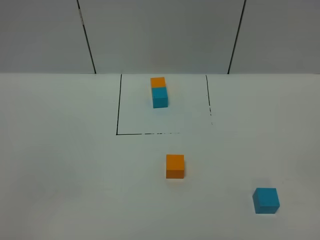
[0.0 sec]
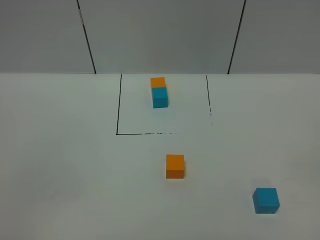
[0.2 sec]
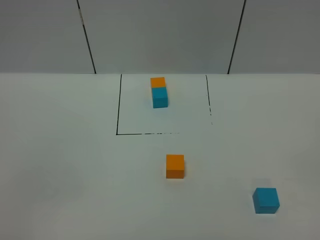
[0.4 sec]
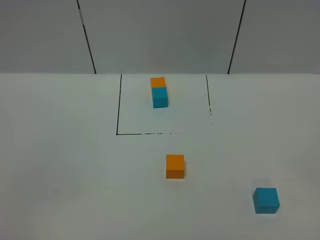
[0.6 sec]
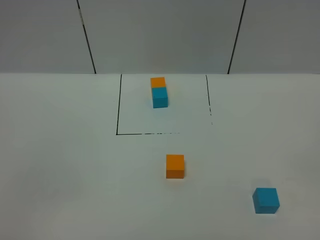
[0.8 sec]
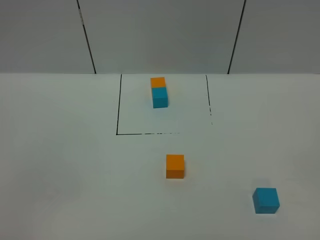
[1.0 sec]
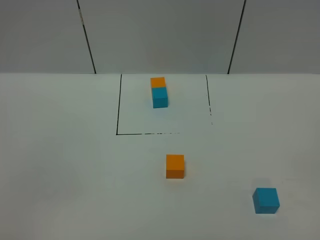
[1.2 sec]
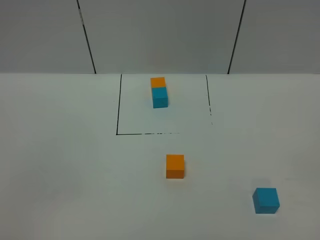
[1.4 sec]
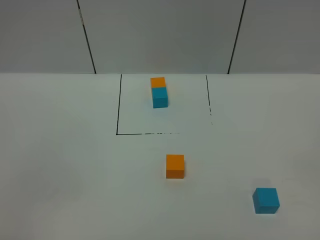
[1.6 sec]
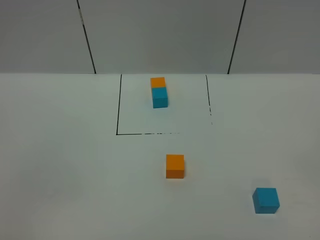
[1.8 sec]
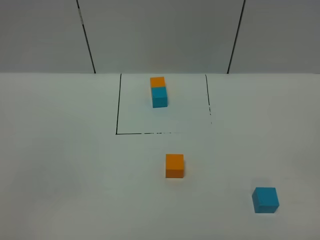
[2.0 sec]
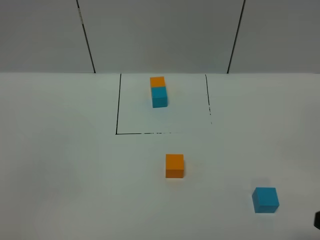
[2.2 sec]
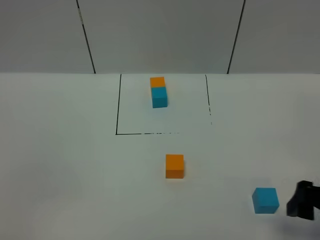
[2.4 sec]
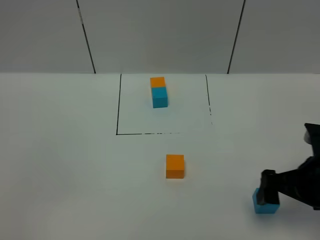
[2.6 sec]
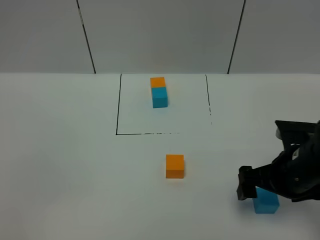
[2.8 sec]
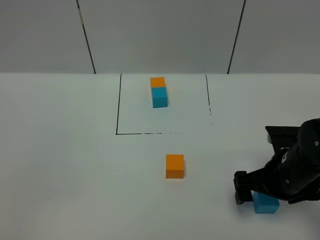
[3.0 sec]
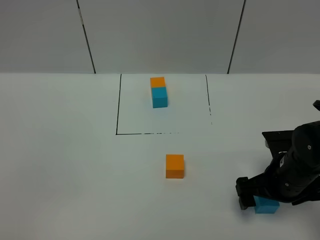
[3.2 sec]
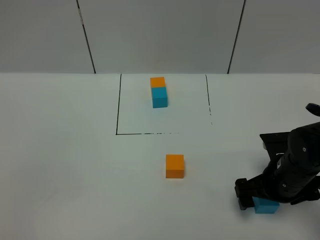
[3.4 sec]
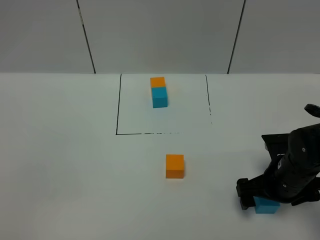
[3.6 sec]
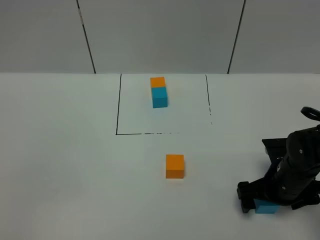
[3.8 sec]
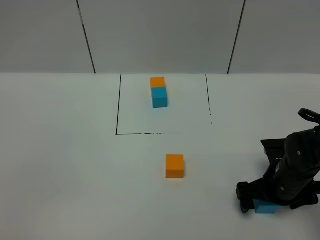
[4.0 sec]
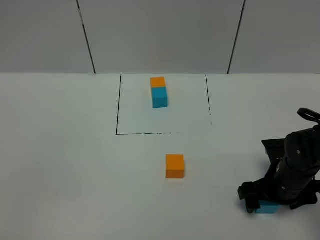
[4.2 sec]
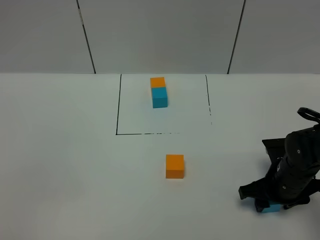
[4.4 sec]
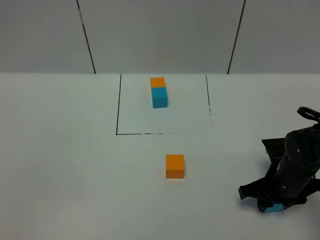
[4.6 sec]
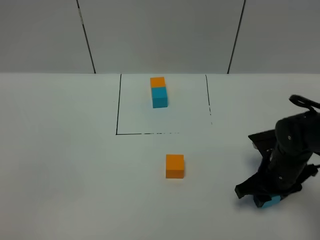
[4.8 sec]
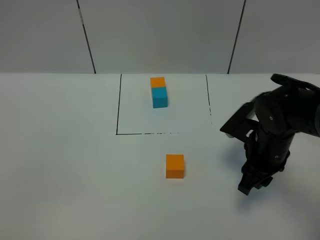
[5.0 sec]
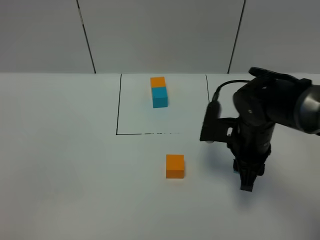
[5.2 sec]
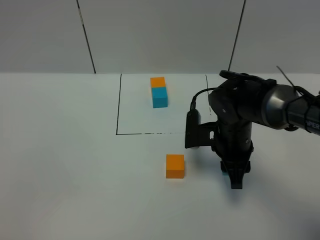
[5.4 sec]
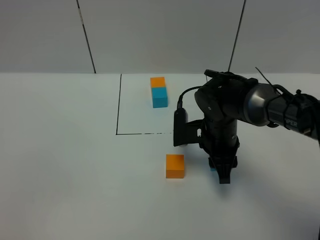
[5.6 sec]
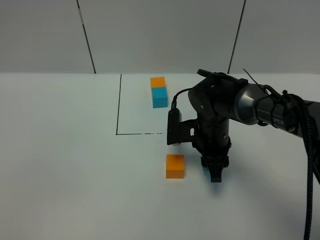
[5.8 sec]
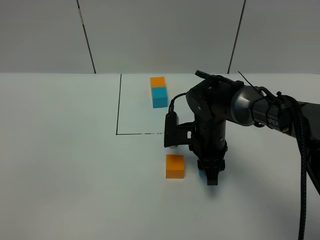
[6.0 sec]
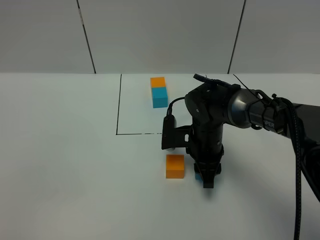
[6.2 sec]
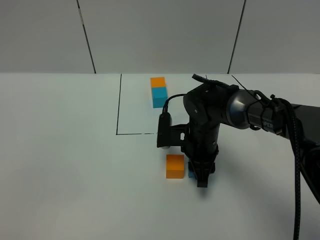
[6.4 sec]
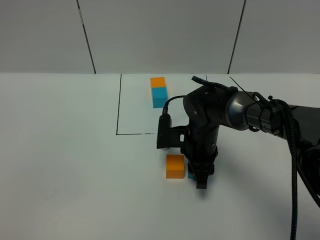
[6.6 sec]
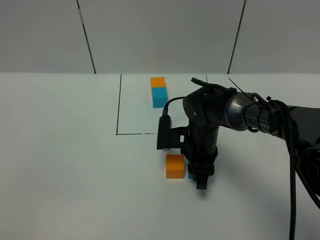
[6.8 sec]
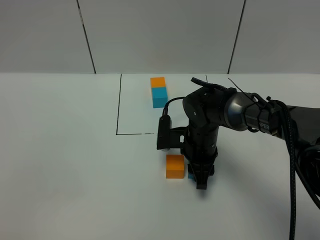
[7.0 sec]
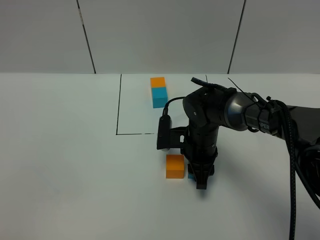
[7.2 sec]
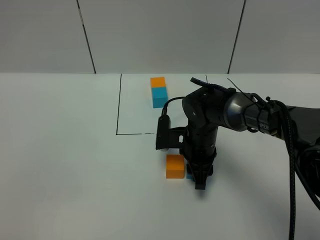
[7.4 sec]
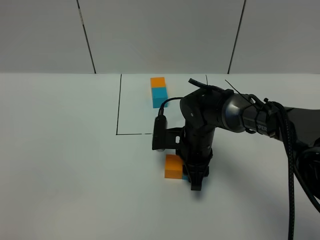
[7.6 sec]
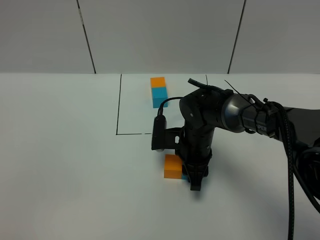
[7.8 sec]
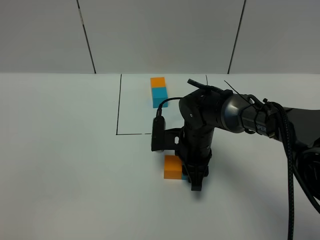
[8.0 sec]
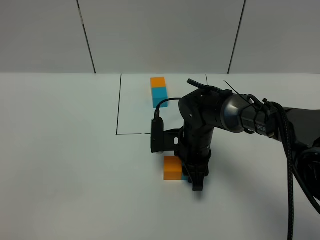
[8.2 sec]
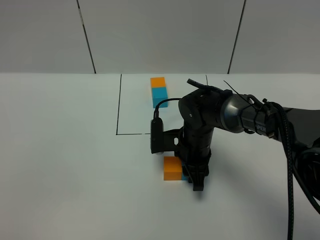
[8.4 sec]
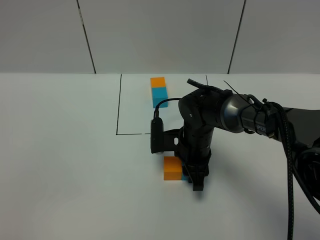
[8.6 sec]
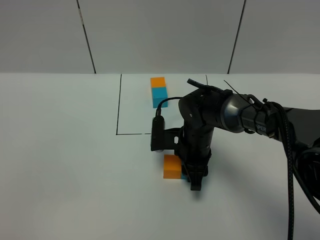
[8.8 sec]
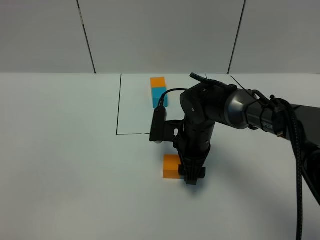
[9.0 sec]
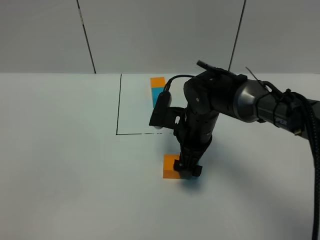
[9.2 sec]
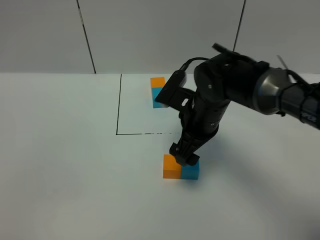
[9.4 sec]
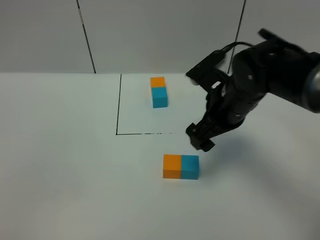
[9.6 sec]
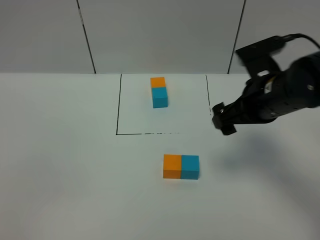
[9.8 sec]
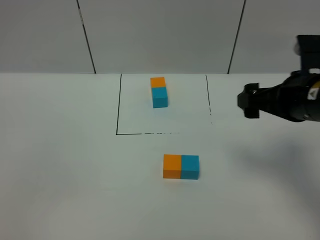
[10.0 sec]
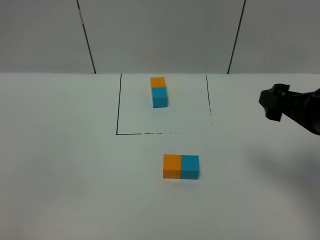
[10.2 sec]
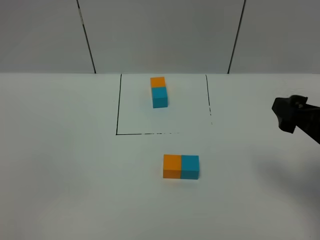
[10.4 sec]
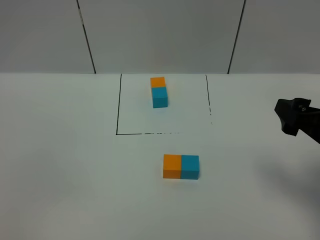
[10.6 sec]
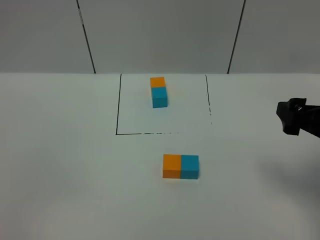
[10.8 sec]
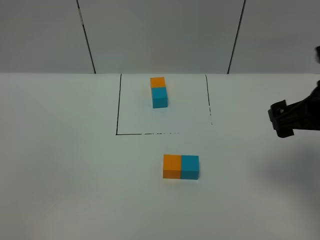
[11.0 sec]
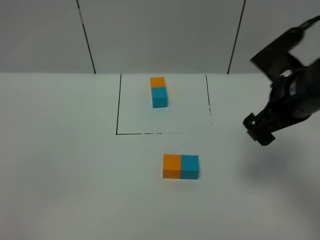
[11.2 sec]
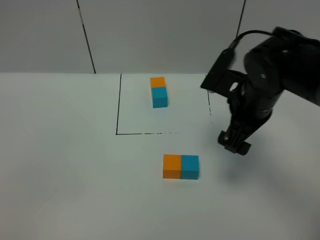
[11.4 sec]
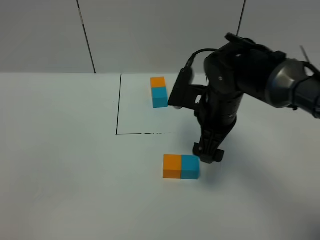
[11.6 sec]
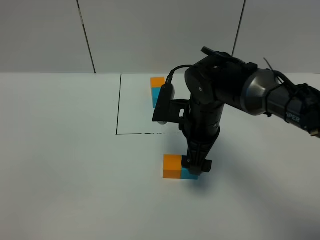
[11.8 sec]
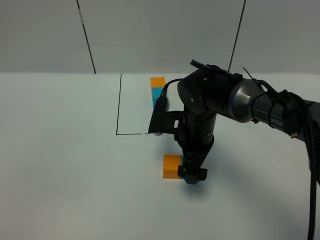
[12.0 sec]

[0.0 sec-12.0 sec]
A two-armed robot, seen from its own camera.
Task of the whole recording: According to the building block template in front, assemble the scattered blocks together.
Step, 0.0 sec to 9.0 sec: Put the blue cube on the right of the orange cube.
0.0 sec to 1.6 sec: The two grippers keep their place.
1.6 sec to 3.0 sec: The right gripper heads forward and downward, covering approximately 30 cm.
3.0 sec to 4.4 sec: The right gripper is displaced downward by some 5 cm, and closes up.
4.4 sec to 6.0 sec: The right gripper is displaced to the left and forward by some 15 cm.
6.0 sec to 7.6 sec: The grippers move only a little.
7.6 sec to 9.0 sec: The right gripper opens its fingers.
9.0 sec to 10.4 sec: The right gripper goes about 30 cm to the right, backward and upward, and opens its fingers.
10.4 sec to 12.0 sec: The right gripper heads to the left, forward and downward, covering roughly 25 cm.

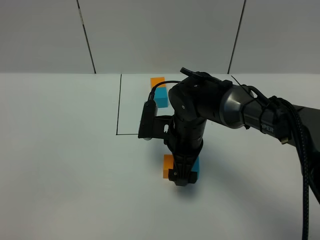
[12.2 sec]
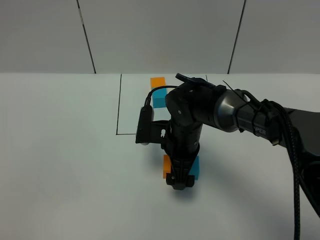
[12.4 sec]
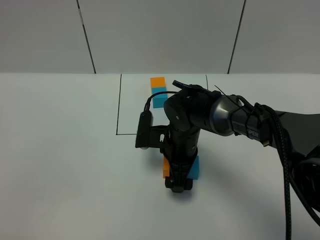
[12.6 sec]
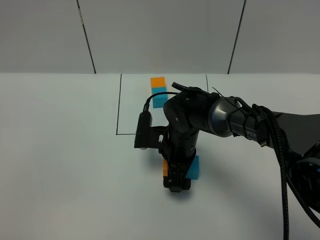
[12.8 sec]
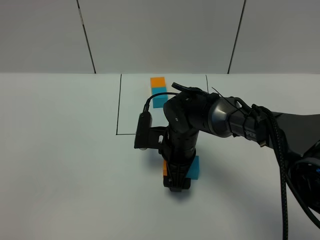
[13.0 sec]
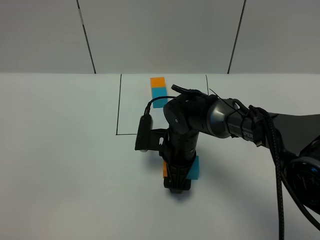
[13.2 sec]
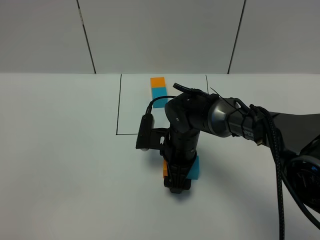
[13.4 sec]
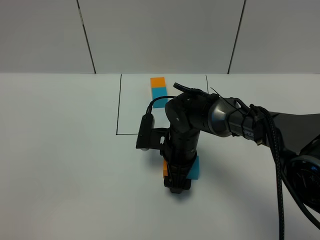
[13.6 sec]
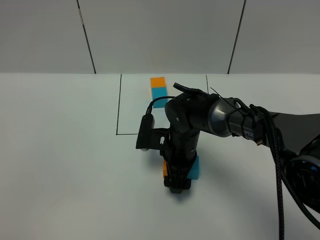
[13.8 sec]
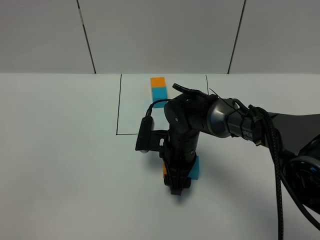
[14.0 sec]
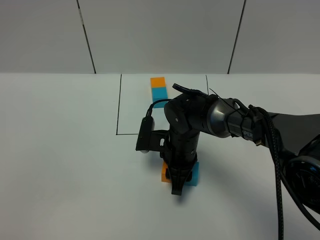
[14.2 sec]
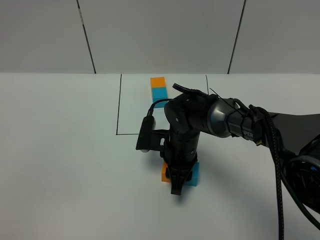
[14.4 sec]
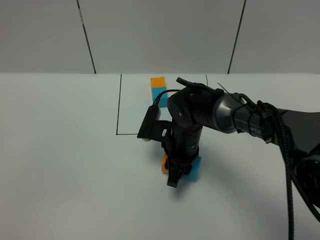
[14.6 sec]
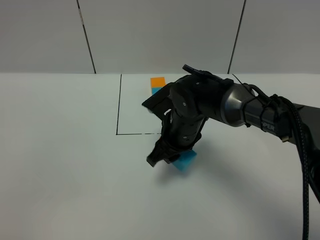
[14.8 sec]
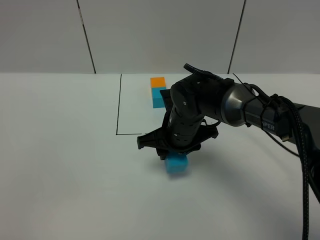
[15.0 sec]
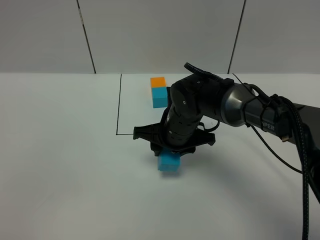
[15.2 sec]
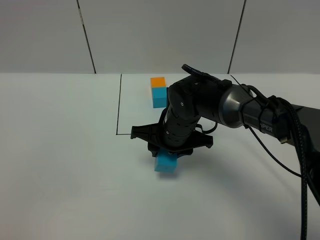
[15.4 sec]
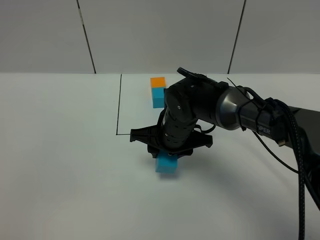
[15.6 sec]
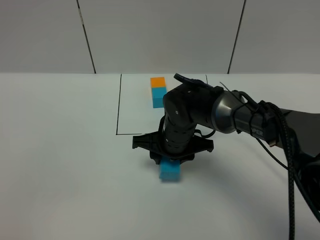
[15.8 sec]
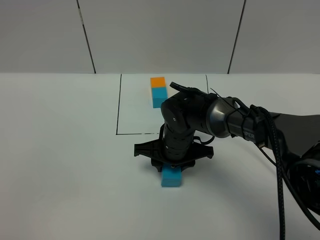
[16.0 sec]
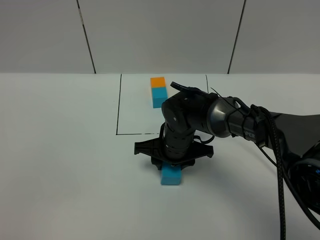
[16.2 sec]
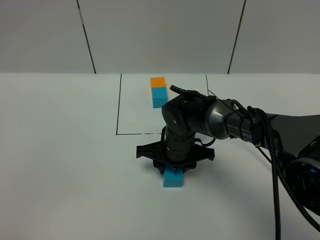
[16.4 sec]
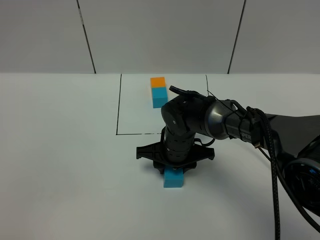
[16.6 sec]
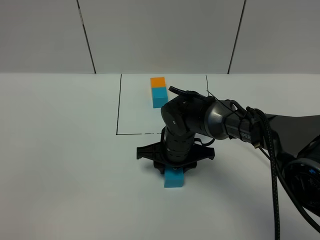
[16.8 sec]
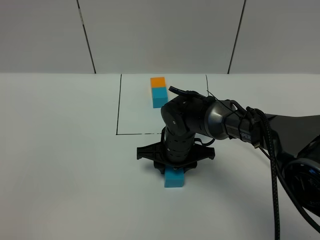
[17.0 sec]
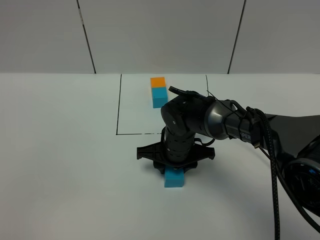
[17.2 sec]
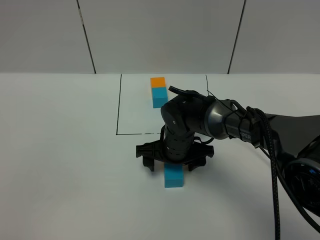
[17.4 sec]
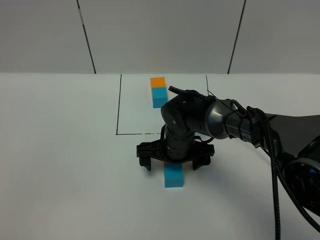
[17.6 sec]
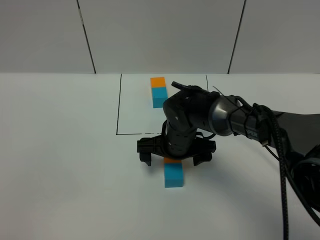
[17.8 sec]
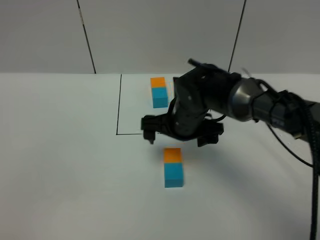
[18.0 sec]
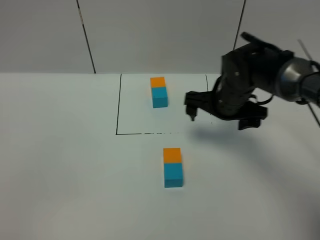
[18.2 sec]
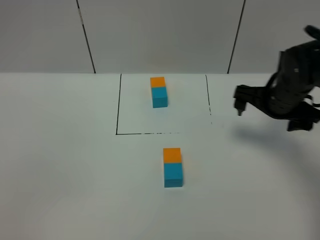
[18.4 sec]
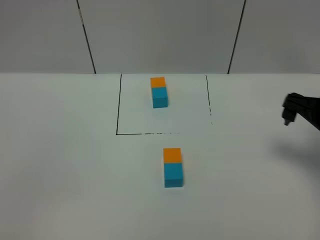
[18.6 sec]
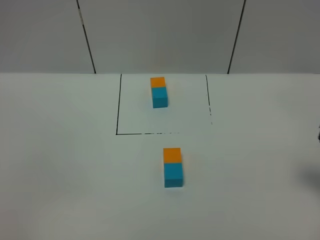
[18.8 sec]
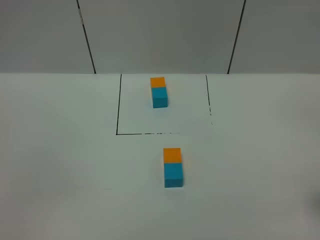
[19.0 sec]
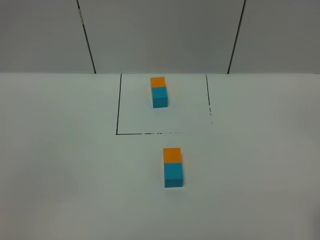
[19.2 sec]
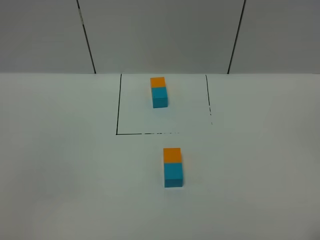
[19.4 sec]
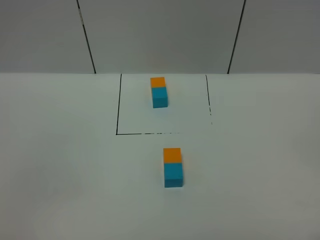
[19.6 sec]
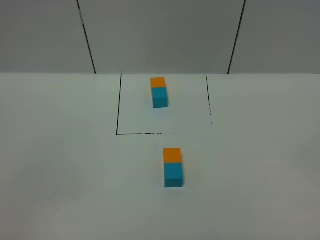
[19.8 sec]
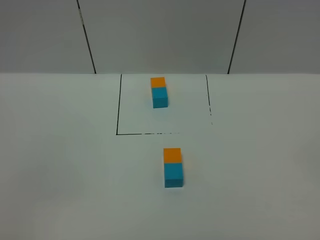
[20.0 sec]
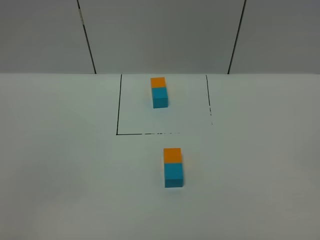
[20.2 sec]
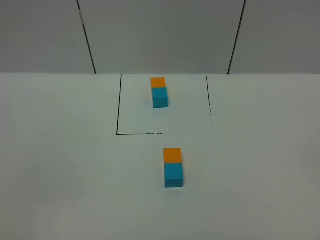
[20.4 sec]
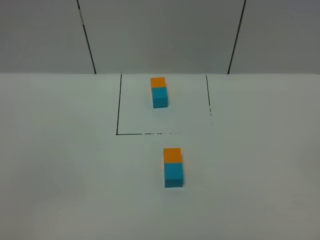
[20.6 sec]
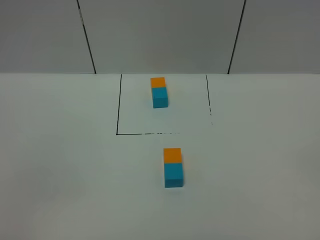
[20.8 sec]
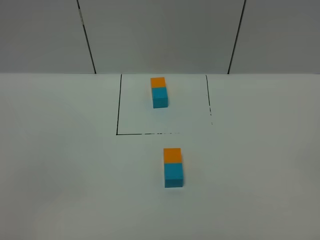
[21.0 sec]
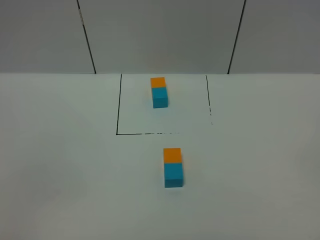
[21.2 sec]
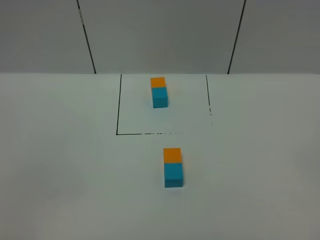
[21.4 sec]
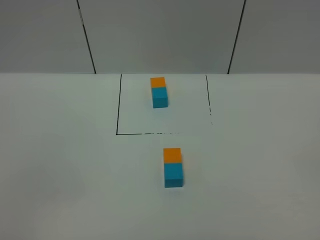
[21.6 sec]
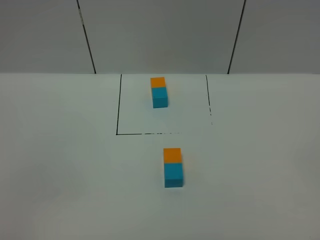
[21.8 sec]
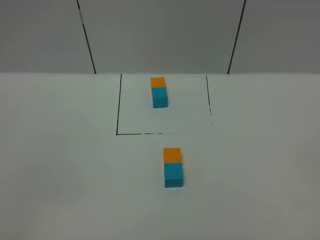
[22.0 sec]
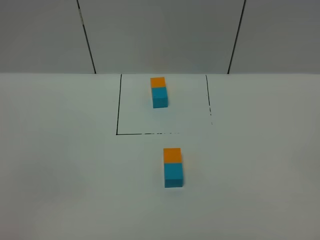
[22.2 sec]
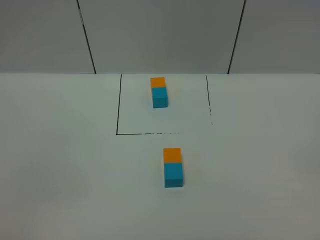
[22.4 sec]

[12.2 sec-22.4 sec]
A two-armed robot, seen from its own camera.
Task of the whole recording: According to the building block template in front, assemble the scattered blocks together.
Step, 12.2 sec to 17.2 sec: Adjust the pose of the building blocks.
12.2 sec to 13.6 sec: There are only small adjustments of the grippers.
13.6 sec to 15.2 sec: The right gripper shifts approximately 5 cm upward, and closes up.
15.2 sec to 16.6 sec: The right gripper goes about 5 cm downward.
16.6 sec to 18.0 sec: The right gripper goes some 5 cm upward, and opens.
18.0 sec to 19.4 sec: The right gripper heads backward and to the right, covering roughly 40 cm.
21.0 sec to 22.4 sec: Both grippers stay put.
